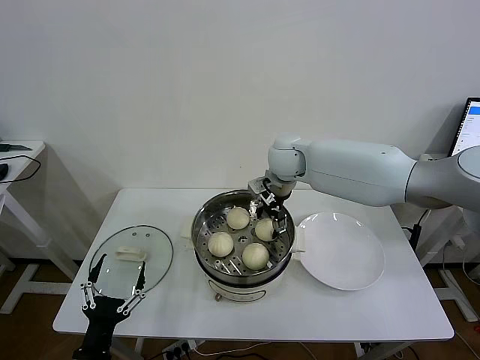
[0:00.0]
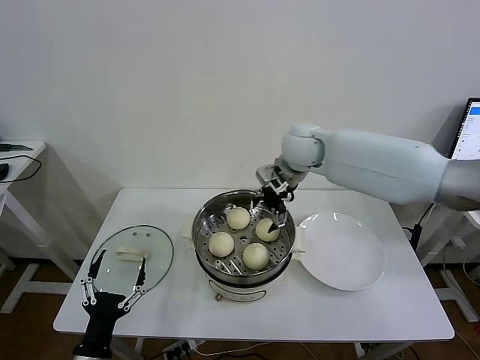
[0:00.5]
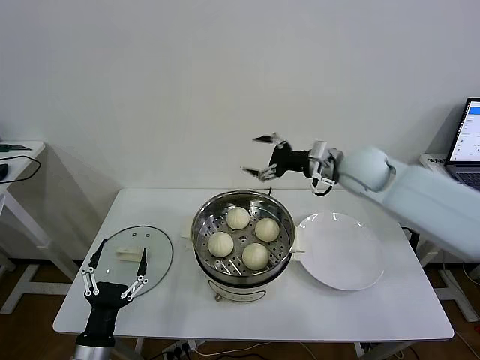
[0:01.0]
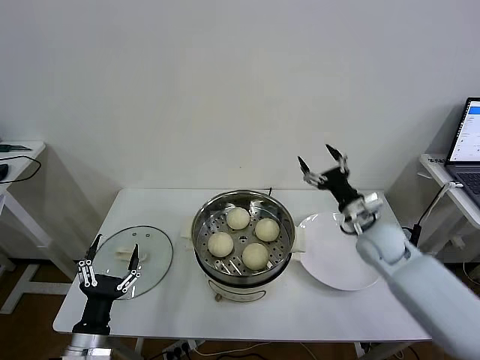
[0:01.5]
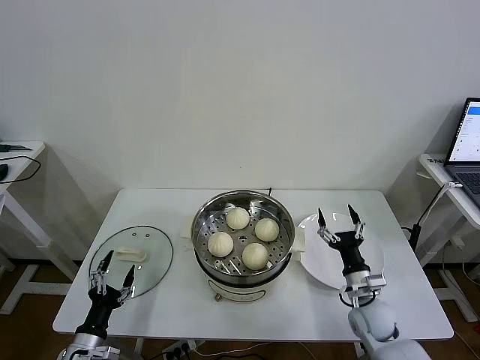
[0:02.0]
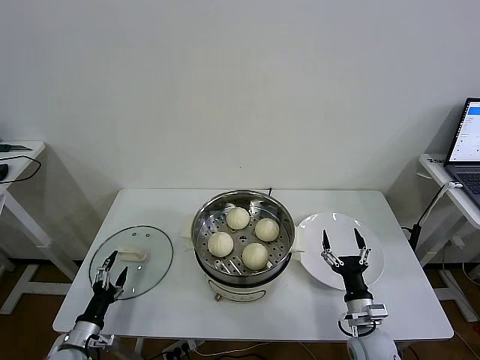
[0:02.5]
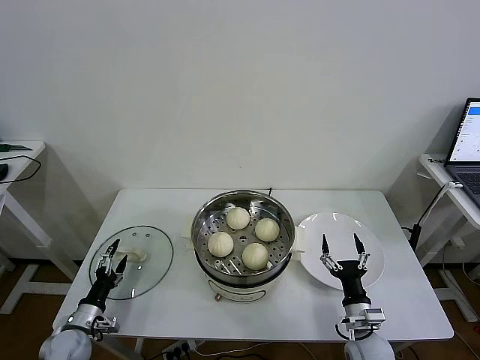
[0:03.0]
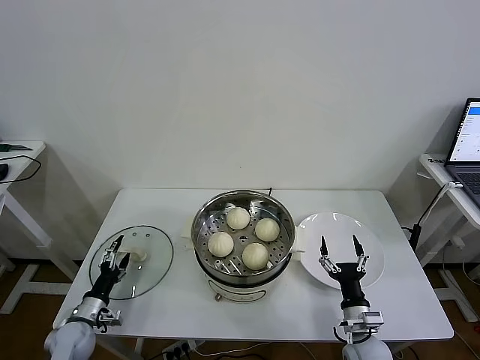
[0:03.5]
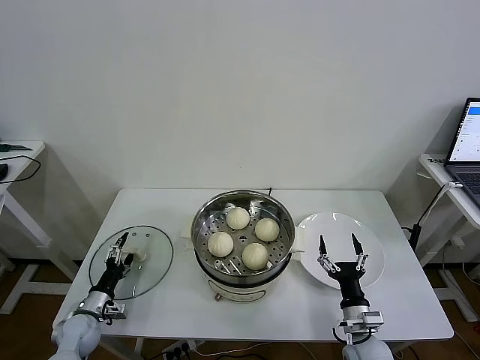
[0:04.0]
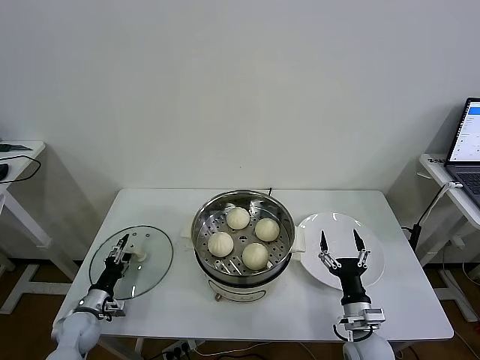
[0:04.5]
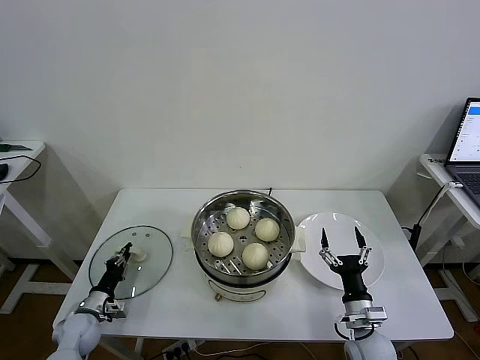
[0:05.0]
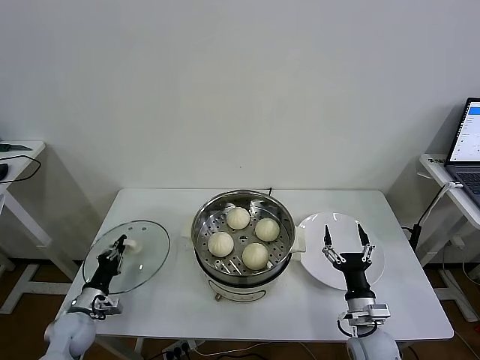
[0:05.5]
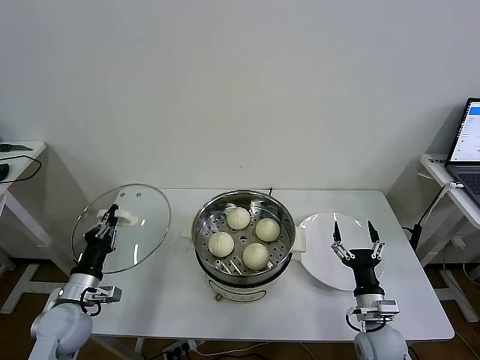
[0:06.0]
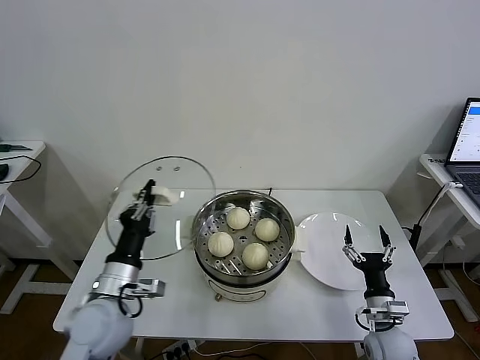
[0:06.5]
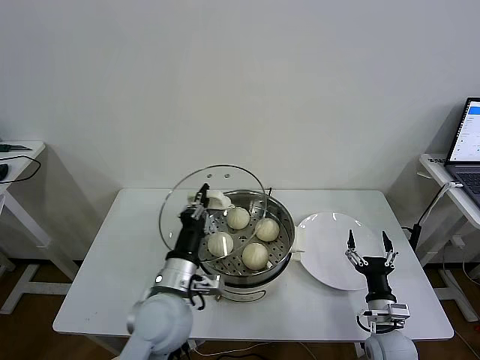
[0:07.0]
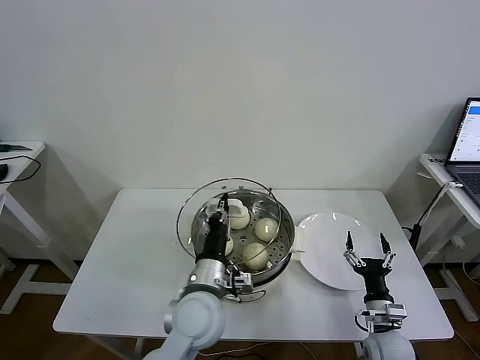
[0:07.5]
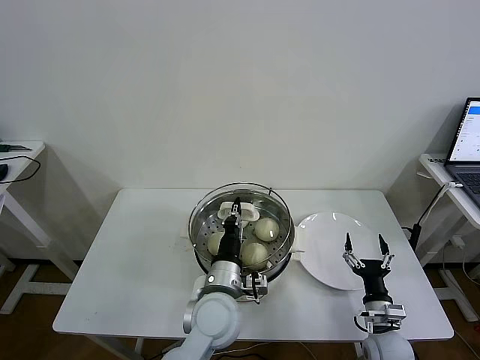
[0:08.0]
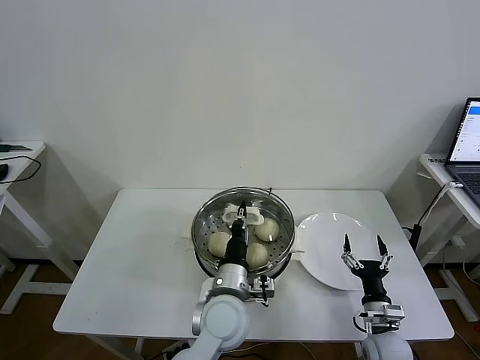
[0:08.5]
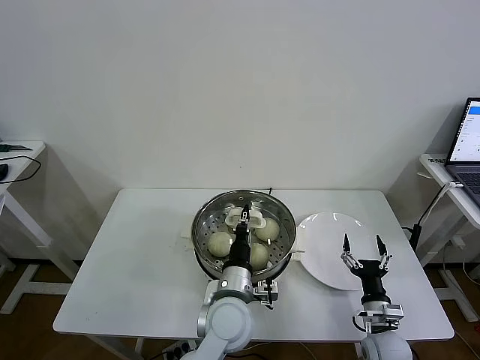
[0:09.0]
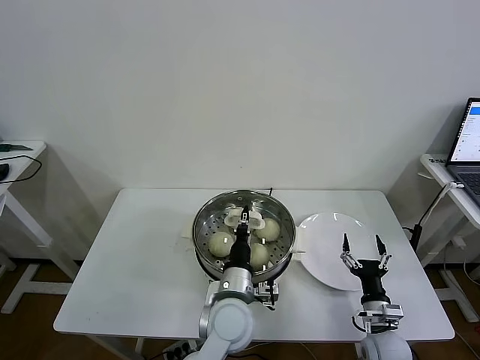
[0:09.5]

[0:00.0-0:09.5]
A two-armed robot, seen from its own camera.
Task of the whole recording: take steamed baozi put them in steamer then cover it.
Step, 0:00.5 to 0:05.0: Grasp the pot lid with left gripper.
0:00.0 to 0:02.0: The right gripper heads downward, backward and to the right, covering about 40 cm; the left gripper travels forward, to the left and downward by approximately 10 cm.
0:02.0 to 0:04.0: The left gripper moves forward, downward and to the left, about 15 cm, while the right gripper travels backward by approximately 10 cm.
0:04.0 to 0:05.5: The left gripper closes.
0:05.5 to 0:07.5: The left gripper moves to the right and upward, some 35 cm.
0:07.5 to 0:09.5: The left gripper heads to the right, covering approximately 5 cm.

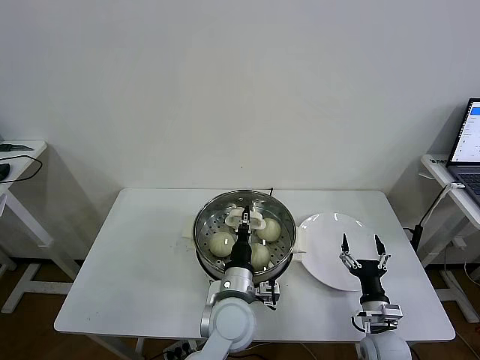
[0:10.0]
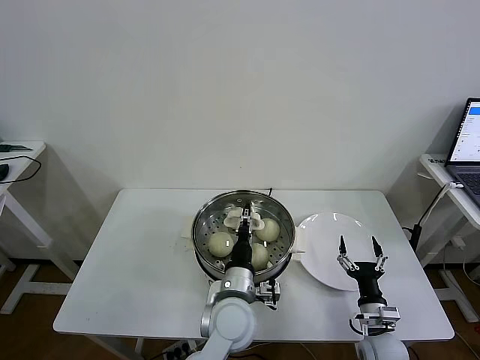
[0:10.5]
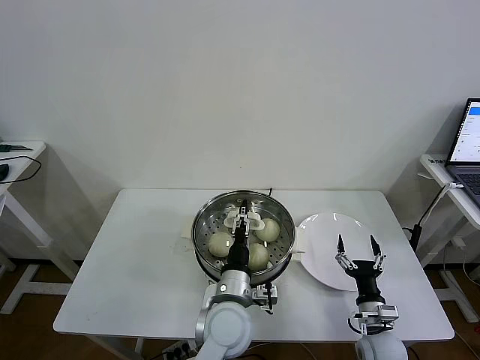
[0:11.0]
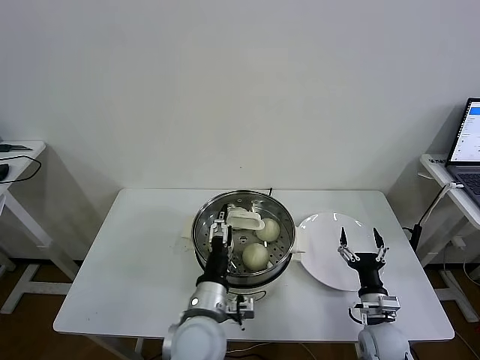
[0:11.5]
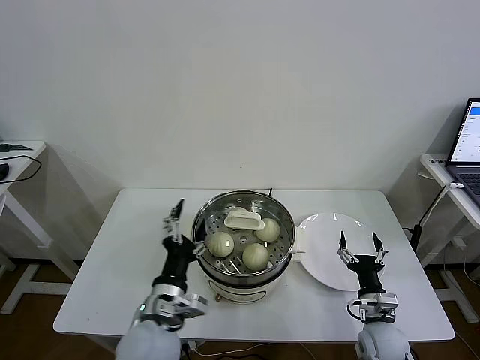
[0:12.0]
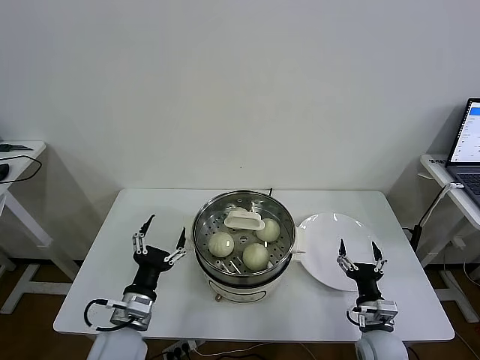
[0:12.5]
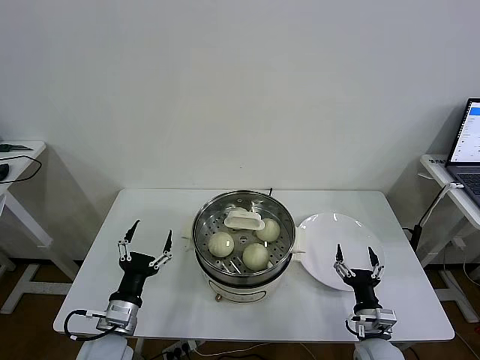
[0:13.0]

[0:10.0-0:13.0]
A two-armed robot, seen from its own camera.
Task of the whole recording: take steamed baozi put them in steamer then cover it.
0:10.0 to 0:11.5: The left gripper shifts by about 5 cm, and opens its fingers.
0:11.5 to 0:13.0: The left gripper is displaced to the left by about 20 cm.
